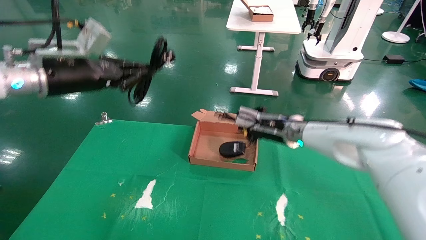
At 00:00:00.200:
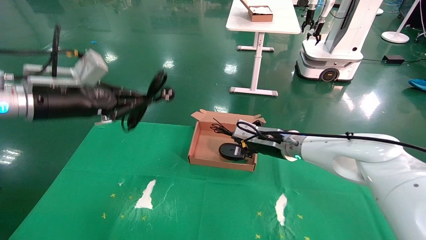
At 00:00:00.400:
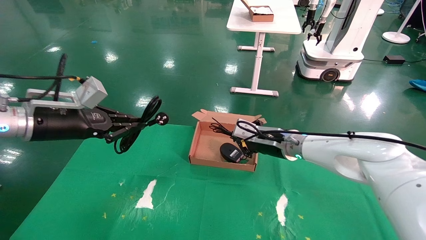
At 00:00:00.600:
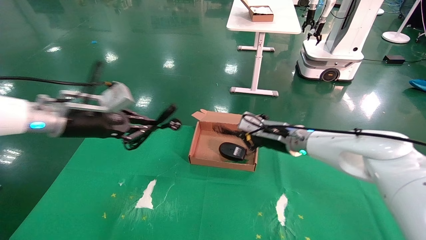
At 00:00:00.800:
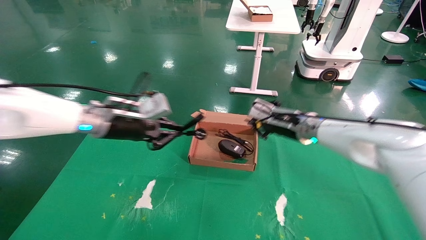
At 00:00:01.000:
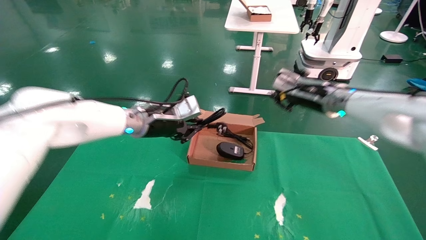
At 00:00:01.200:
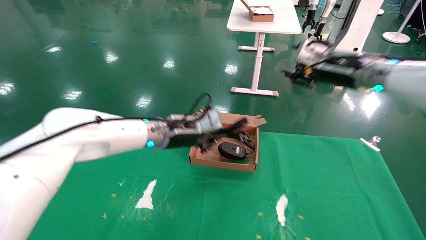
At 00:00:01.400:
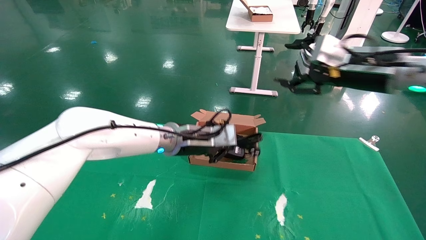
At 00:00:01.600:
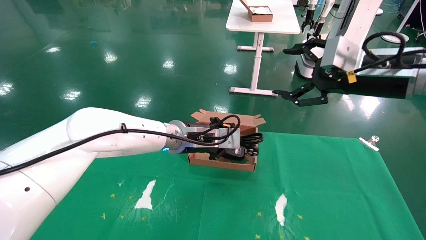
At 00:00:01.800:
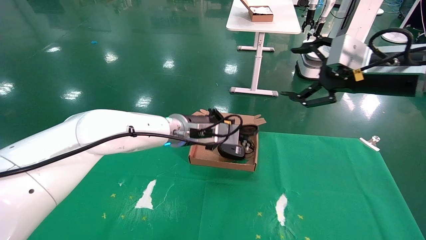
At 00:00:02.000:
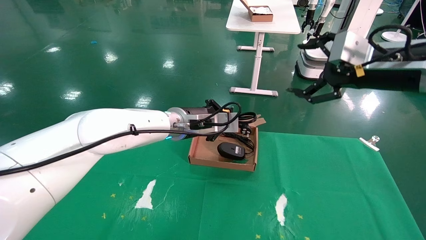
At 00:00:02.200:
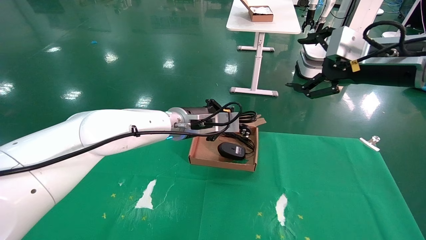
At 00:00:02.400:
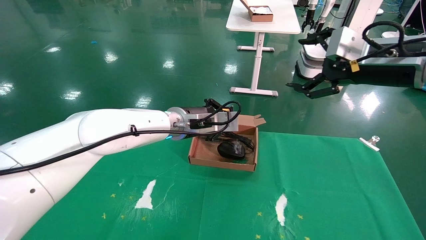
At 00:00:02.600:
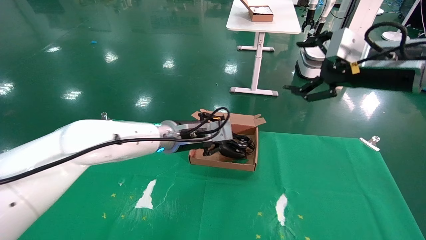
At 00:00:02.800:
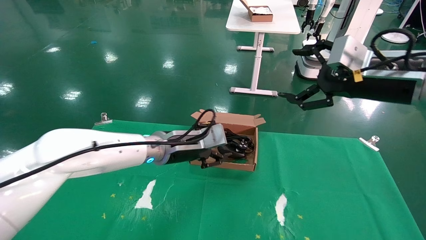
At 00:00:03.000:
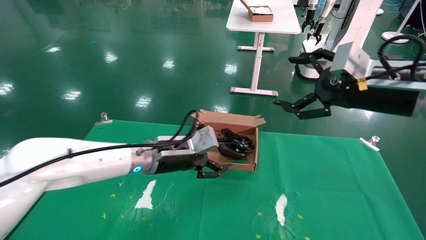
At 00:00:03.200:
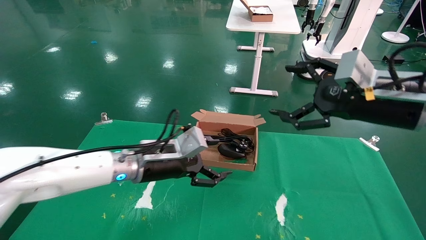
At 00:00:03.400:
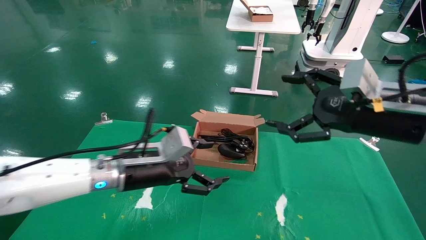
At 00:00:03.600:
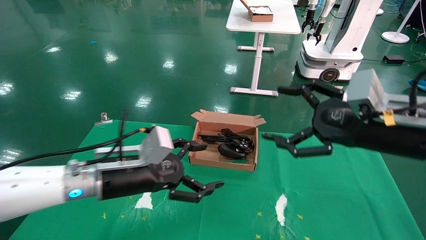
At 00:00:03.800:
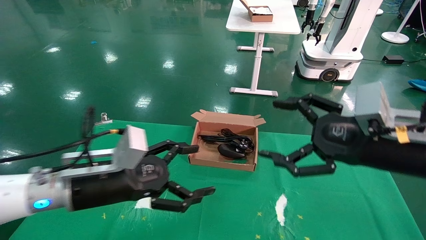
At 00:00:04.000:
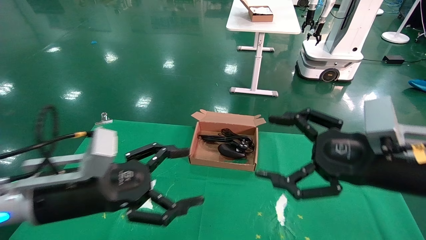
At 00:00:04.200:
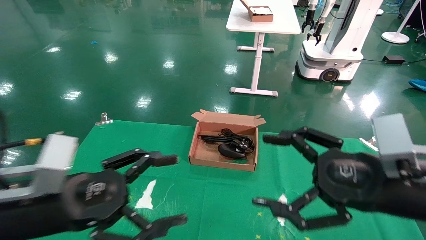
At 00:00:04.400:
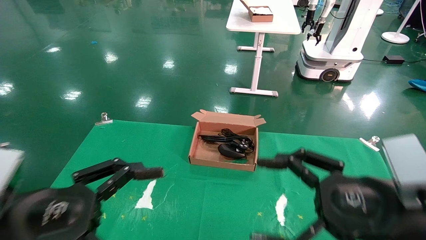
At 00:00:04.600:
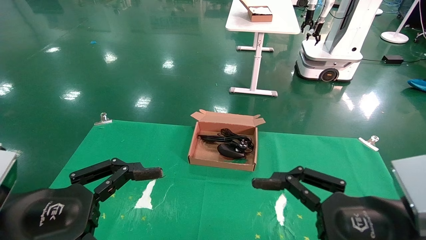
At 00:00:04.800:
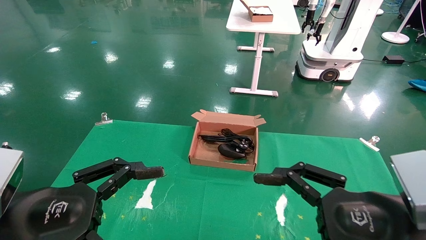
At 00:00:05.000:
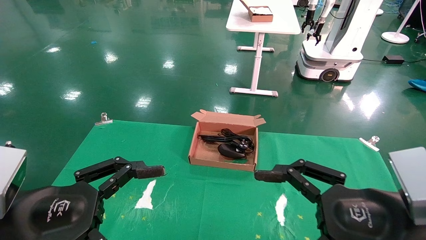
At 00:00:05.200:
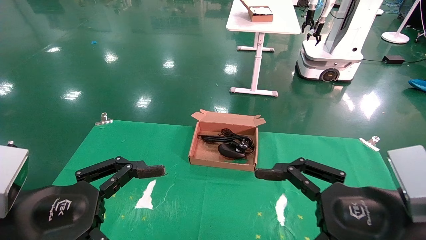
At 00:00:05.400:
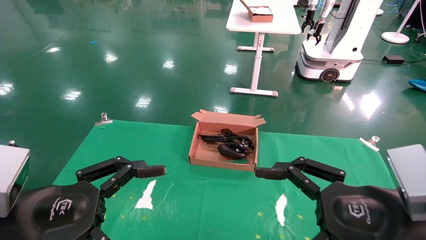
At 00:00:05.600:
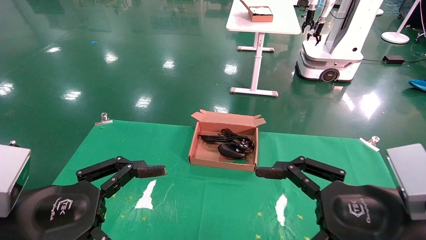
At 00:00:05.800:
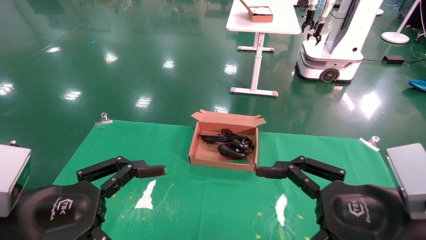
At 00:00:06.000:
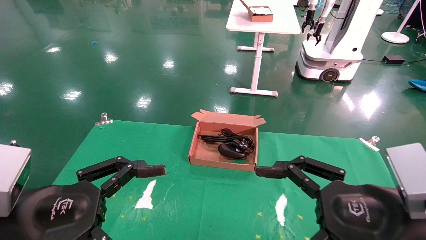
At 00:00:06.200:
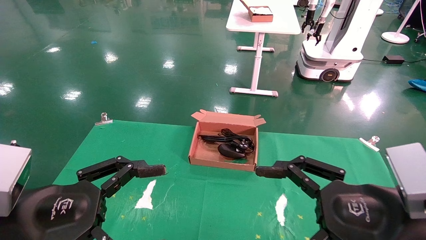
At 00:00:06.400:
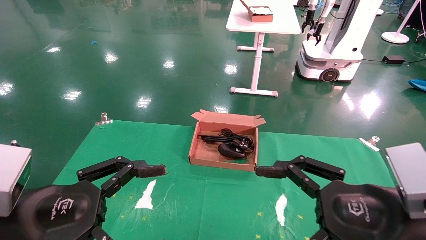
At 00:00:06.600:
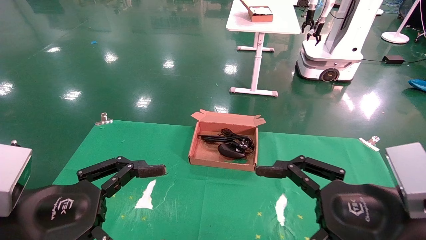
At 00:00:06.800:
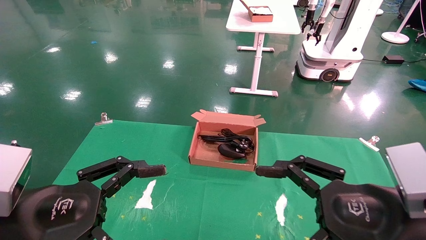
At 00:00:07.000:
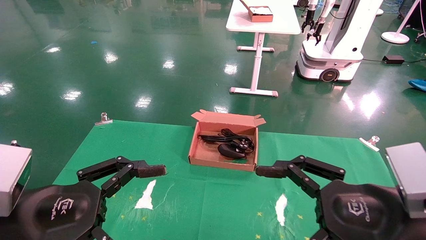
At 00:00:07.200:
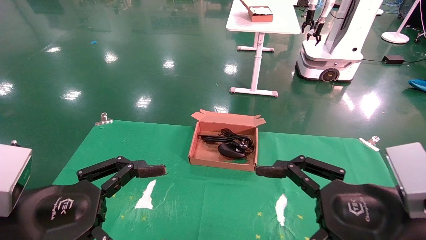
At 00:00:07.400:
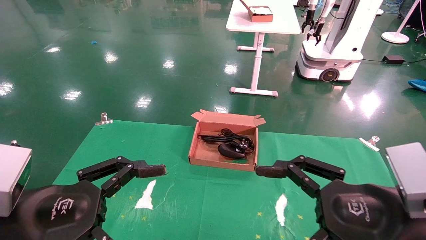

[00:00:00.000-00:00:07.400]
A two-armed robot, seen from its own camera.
Step, 00:00:00.000 to 00:00:02.400: Place the mouse and power cord into the box.
00:00:00.000 to 00:00:01.400: The left gripper travels to the right and downward by approximately 25 cm. Meanwhile the right gripper heads upward, to the right and backward, covering roughly 20 cm, and opens up.
00:00:01.400 to 00:00:03.000: The left gripper moves about 5 cm, and opens up. Meanwhile the right gripper moves backward, about 5 cm, and opens.
00:00:03.000 to 00:00:04.400: The left gripper travels backward and to the left by about 25 cm, and opens; the right gripper is displaced backward and downward by about 20 cm.
00:00:04.400 to 00:00:06.000: The grippers stay close to where they were, moving slightly.
00:00:06.000 to 00:00:07.400: Both grippers stay about where they are.
